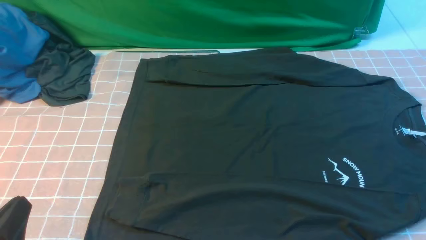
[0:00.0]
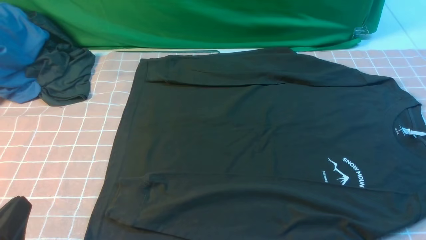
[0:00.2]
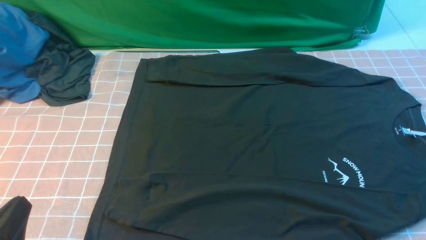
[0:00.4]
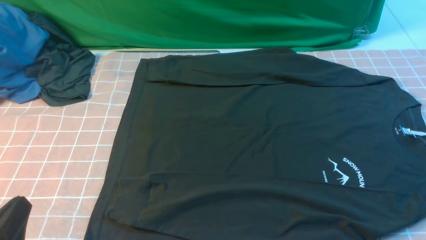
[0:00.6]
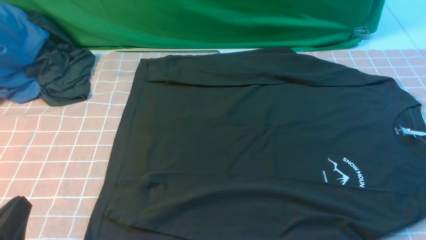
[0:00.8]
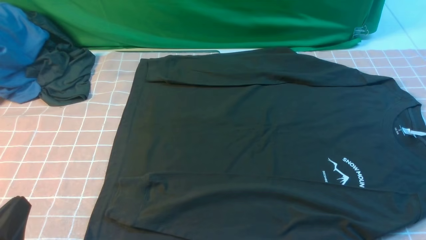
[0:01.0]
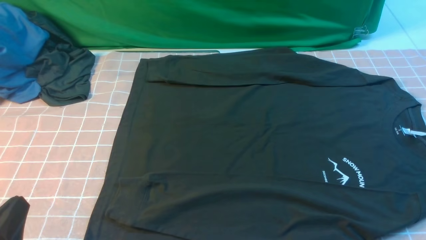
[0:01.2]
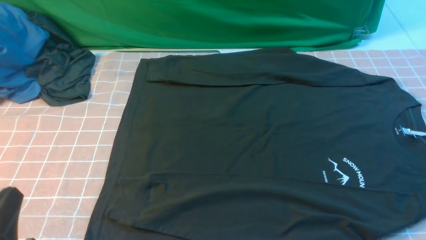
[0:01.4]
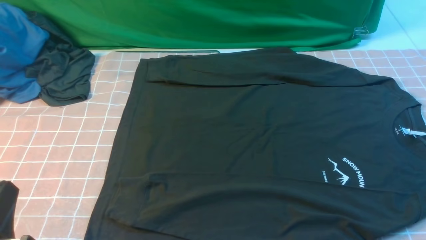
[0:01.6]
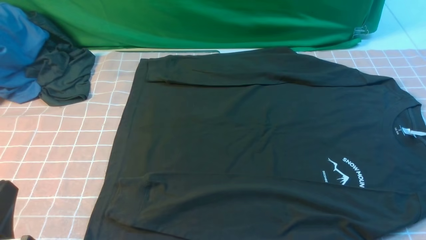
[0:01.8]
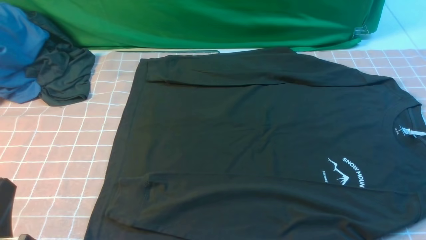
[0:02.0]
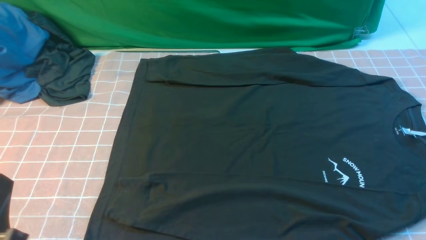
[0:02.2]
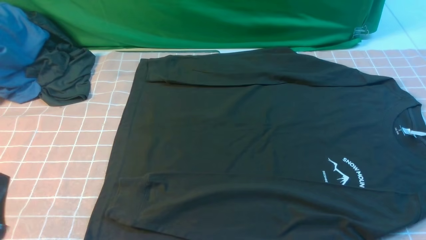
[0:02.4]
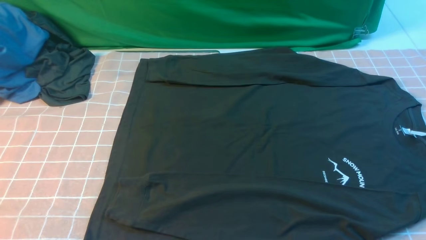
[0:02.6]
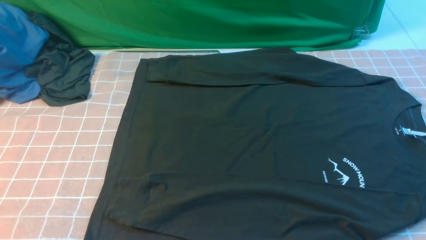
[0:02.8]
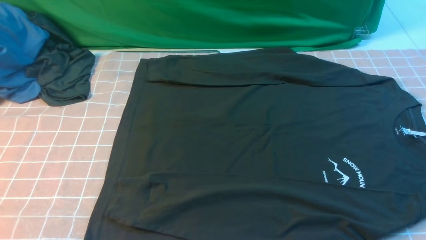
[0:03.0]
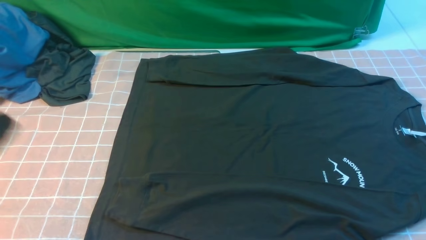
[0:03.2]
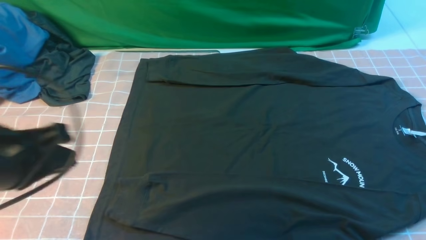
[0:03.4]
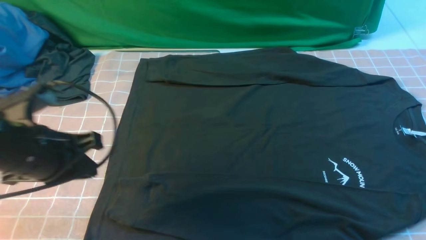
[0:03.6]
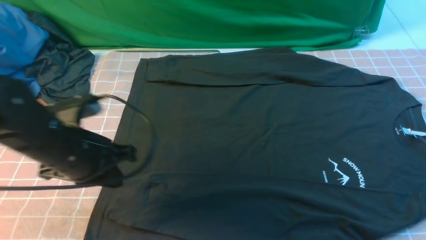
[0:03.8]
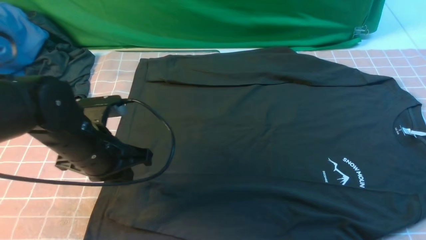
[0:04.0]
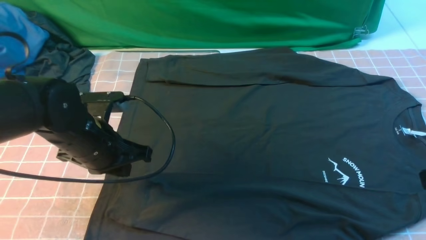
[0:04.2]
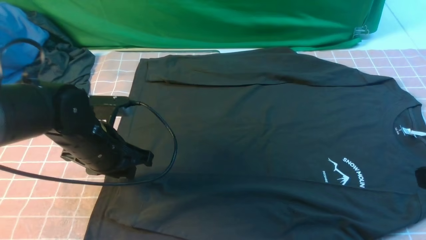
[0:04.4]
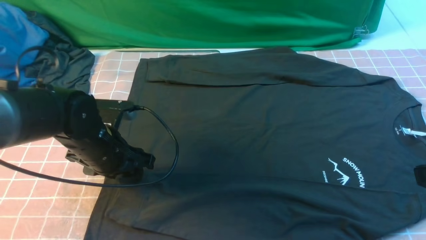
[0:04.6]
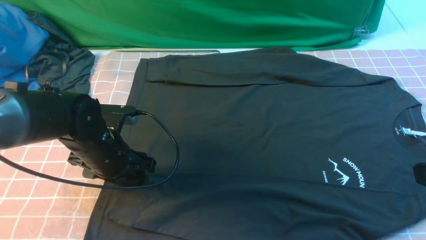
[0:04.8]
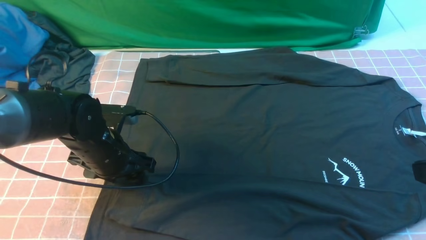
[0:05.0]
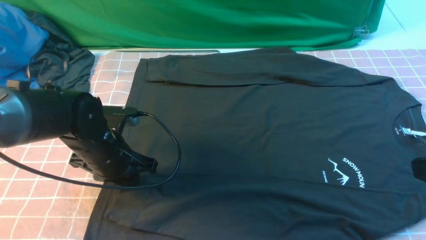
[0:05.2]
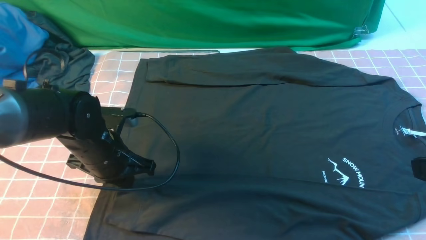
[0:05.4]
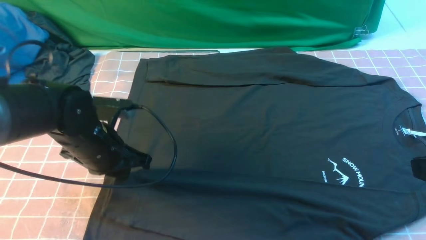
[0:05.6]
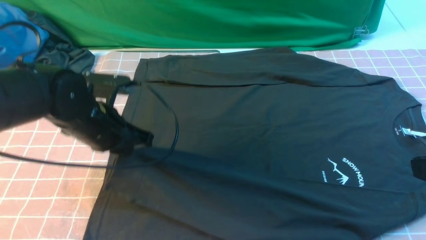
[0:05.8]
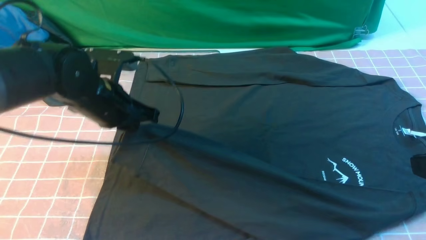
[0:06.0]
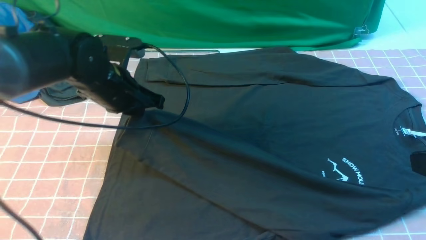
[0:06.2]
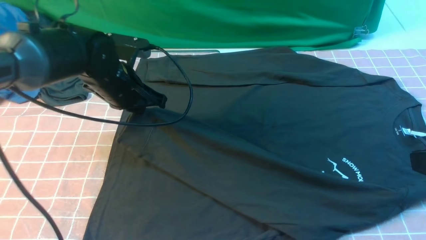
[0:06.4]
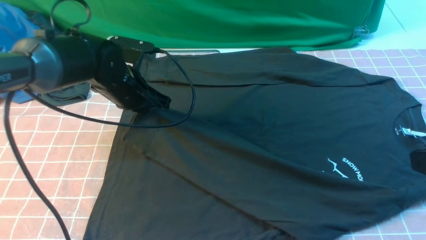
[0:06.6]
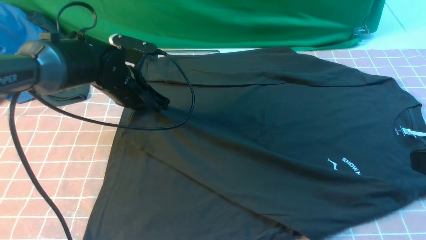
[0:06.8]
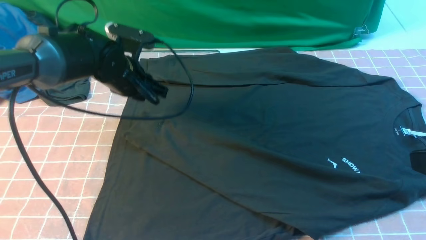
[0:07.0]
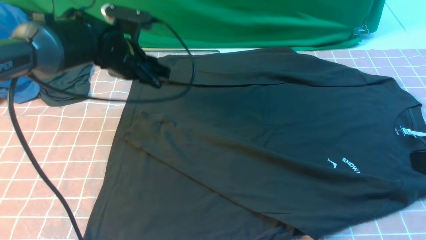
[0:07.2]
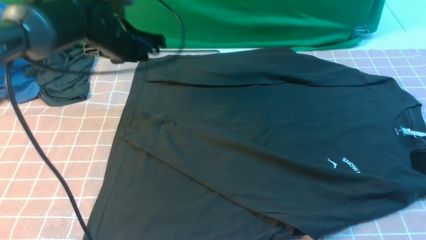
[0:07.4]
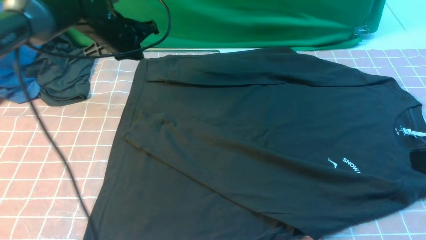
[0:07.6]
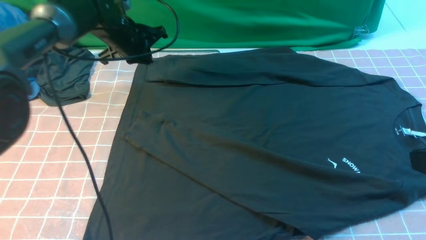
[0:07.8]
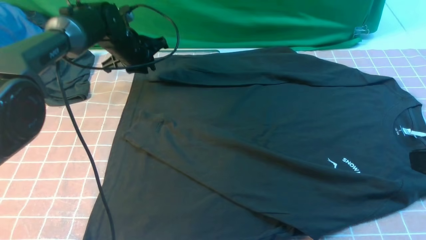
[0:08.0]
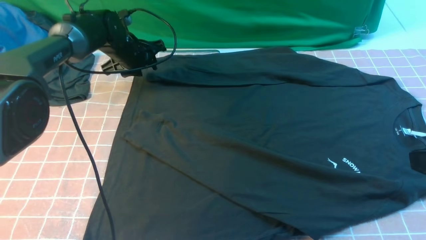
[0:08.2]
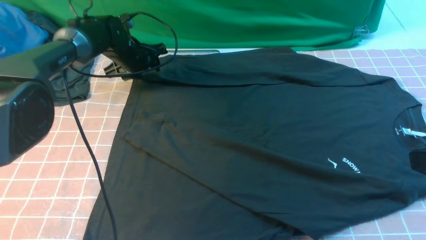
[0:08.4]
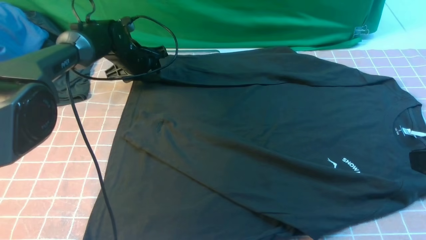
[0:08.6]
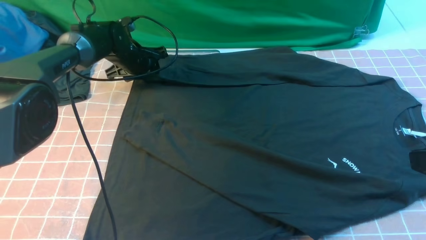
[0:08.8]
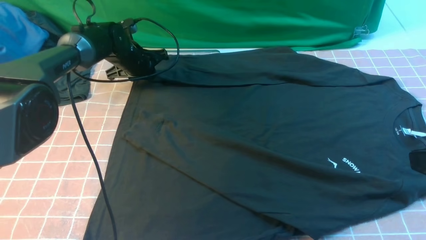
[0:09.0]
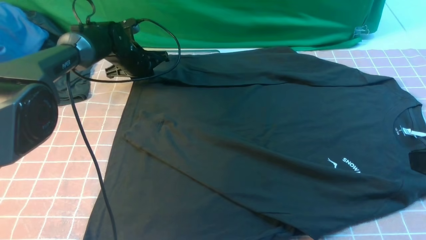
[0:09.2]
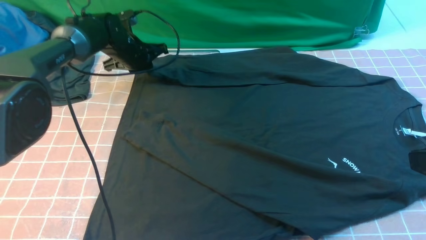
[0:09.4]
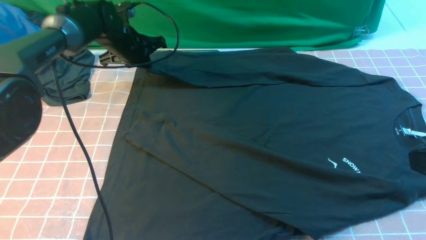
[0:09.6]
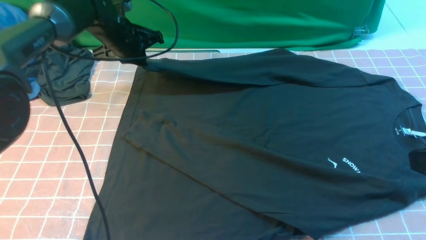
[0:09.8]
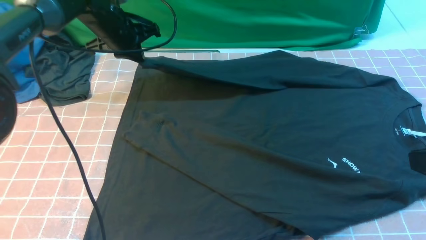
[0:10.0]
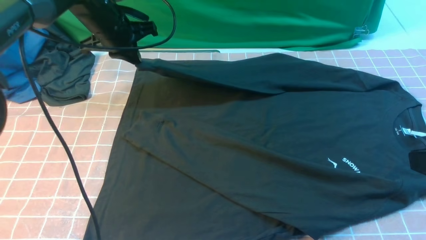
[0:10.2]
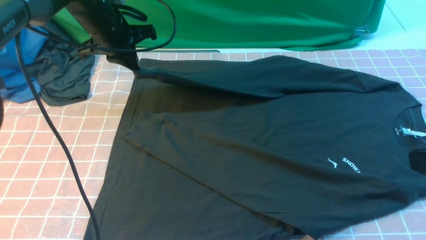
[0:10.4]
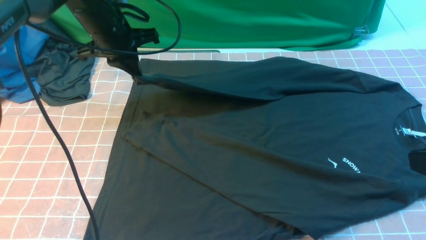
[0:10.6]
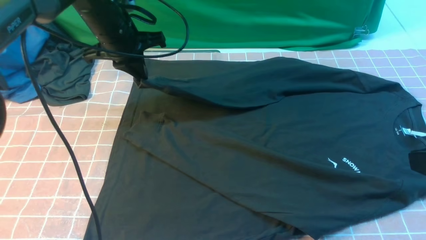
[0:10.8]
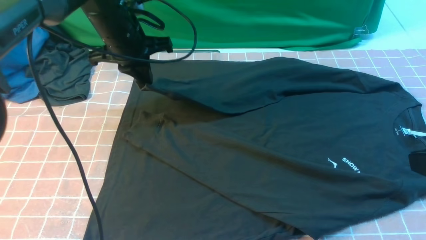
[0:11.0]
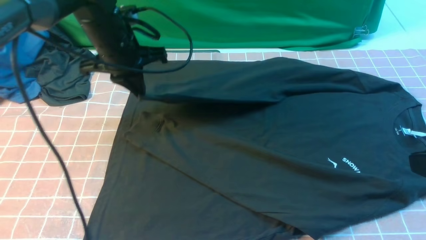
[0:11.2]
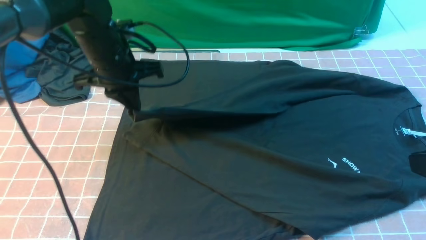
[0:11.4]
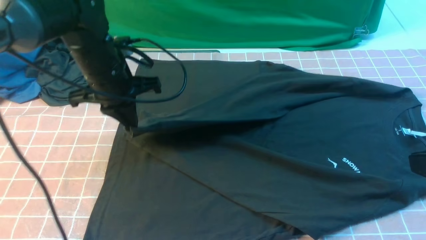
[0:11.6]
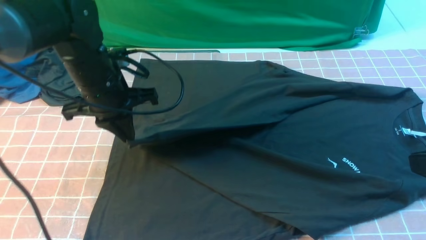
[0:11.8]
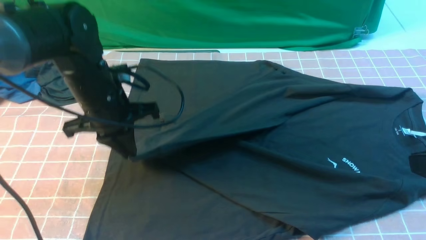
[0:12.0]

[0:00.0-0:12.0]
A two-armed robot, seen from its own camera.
Step, 0:00.0 to 0:05.6: use the left arm to clamp the cuff closest to it.
Step, 0:05.8 to 0:07.0: use the left arm to drag and place the cuff at the centered position on the left edge of the fabric.
Step, 0:07.2 to 0:09.4: use the left arm to clamp the cuff farthest from it.
0:00.0 to 0:01.6: The grippers move only a little.
0:01.6 to 0:03.0: The left gripper shifts about 10 cm upward.
0:03.0 to 0:04.4: The right gripper is displaced forward and upward by roughly 10 cm; the left gripper goes some 25 cm forward and downward, and opens its fingers.
0:04.4 to 0:06.0: The left gripper changes place by roughly 5 cm, and closes.
0:06.0 to 0:07.6: The left gripper is displaced forward by about 15 cm, and opens and closes again.
0:07.6 to 0:09.0: The left gripper moves downward and forward, some 10 cm, and opens and closes again.
0:09.0 to 0:10.4: The left gripper heads upward and backward, covering approximately 15 cm.
0:10.4 to 0:12.0: The left gripper shifts some 15 cm backward.

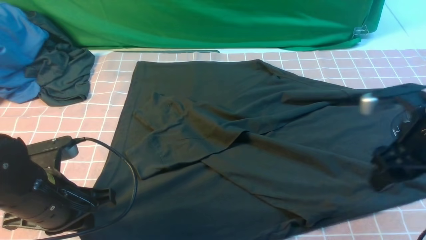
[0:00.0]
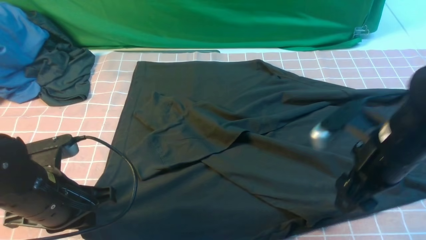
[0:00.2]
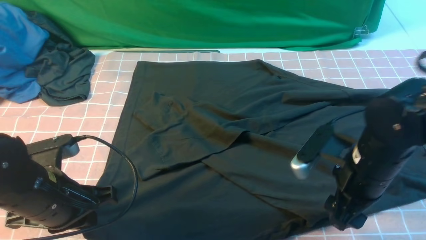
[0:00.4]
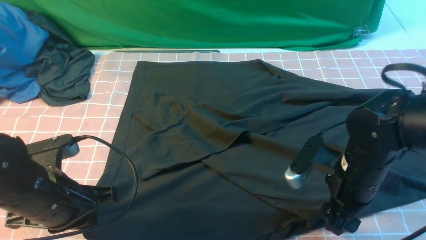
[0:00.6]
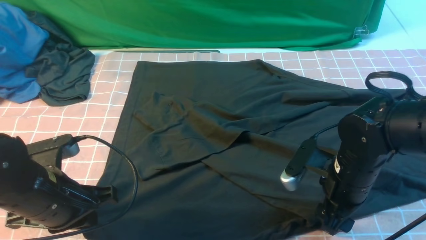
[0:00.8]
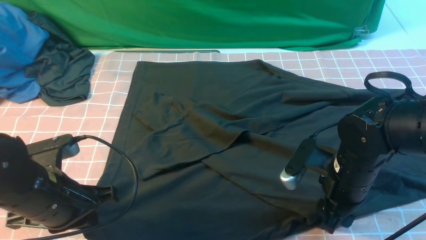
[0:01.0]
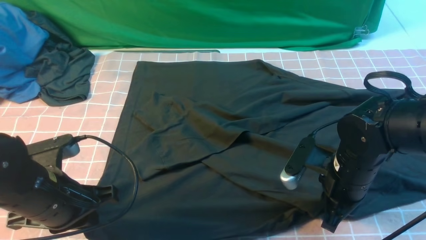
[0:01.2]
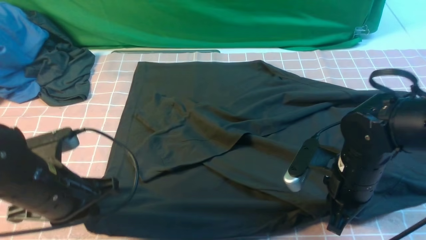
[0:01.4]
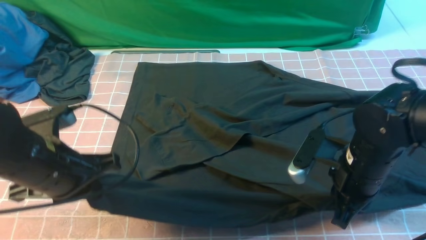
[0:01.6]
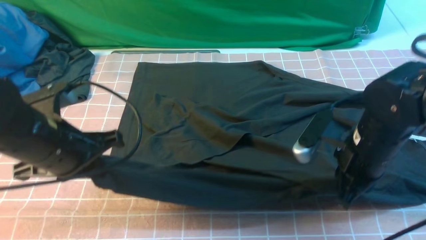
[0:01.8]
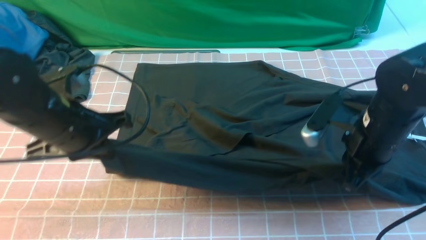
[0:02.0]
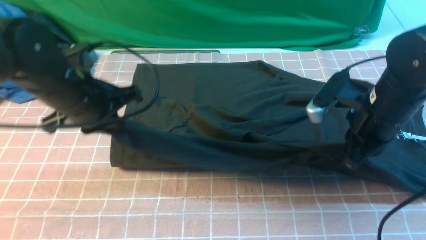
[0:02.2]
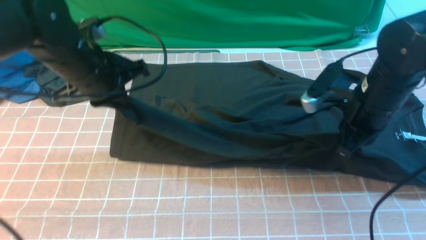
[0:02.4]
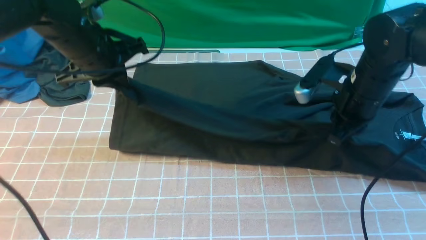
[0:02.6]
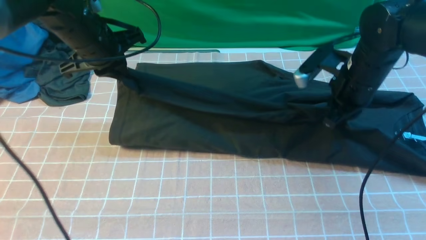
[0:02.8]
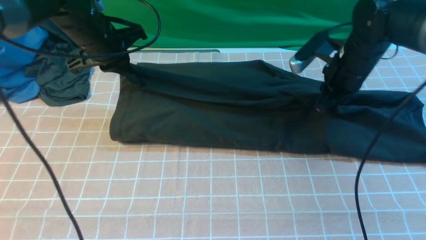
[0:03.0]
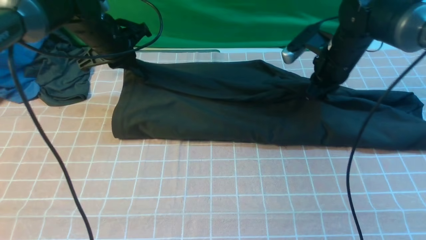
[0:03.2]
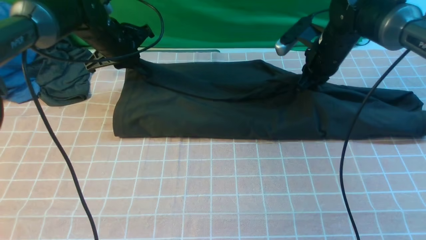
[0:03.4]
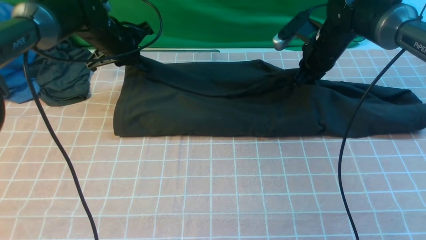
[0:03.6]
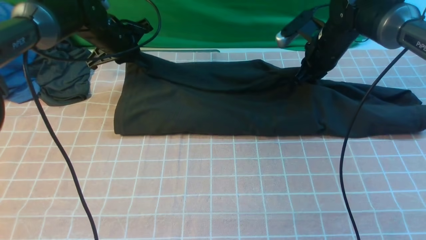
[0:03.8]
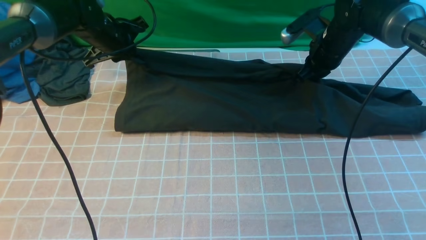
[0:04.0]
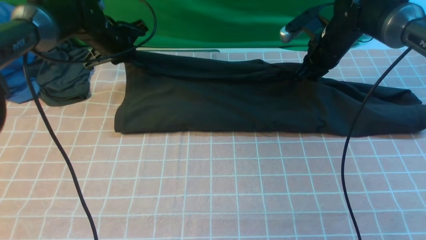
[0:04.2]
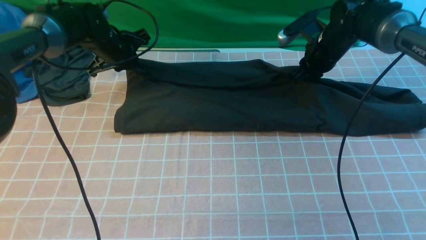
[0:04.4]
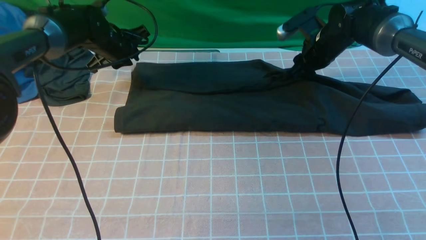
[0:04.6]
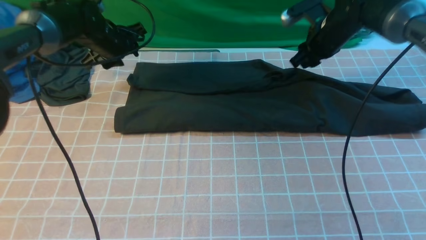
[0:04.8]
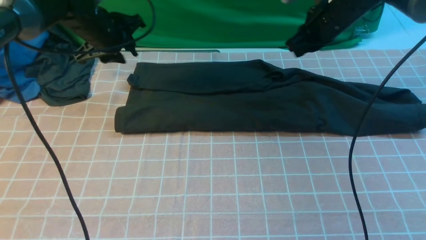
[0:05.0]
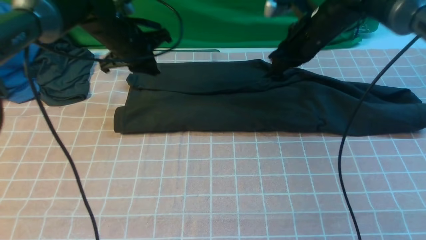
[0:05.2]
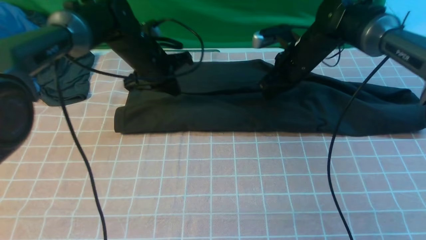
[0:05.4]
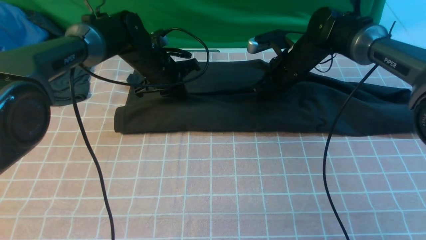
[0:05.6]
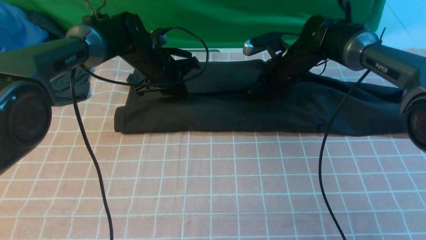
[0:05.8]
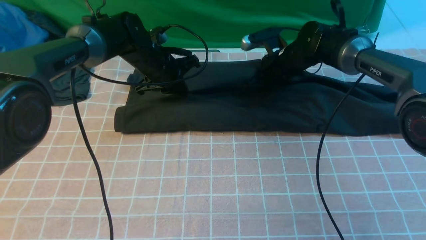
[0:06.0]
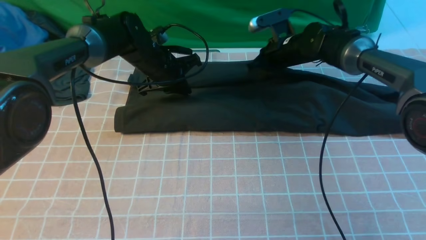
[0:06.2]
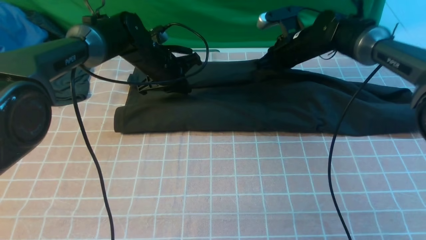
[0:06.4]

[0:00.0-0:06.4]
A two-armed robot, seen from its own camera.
Step, 0:00.0 to 0:01.6: use both arms simultaneously to clamp the lower edge of the clothing fabric.
0:00.0 to 0:01.6: The right gripper travels to the left by roughly 5 cm, and closes up.
0:01.6 to 0:03.2: Both grippers travel together forward, approximately 25 cm.
0:03.2 to 0:04.8: The left gripper opens up.
0:04.8 to 0:06.4: The left gripper shifts approximately 10 cm to the right and downward, and closes up. The right gripper goes some 5 cm downward.
